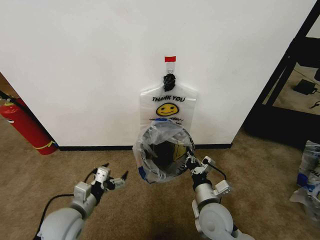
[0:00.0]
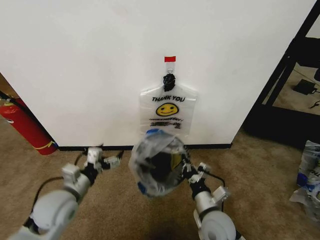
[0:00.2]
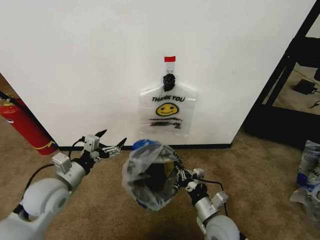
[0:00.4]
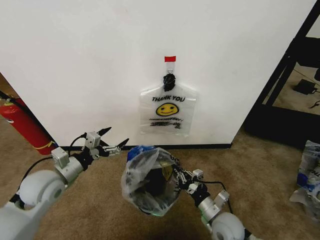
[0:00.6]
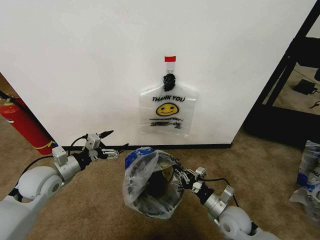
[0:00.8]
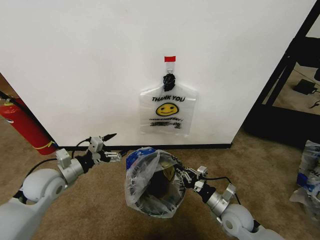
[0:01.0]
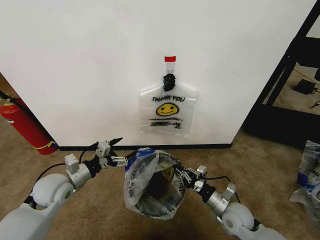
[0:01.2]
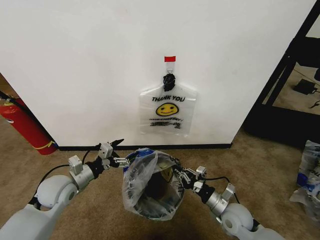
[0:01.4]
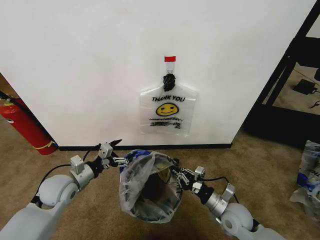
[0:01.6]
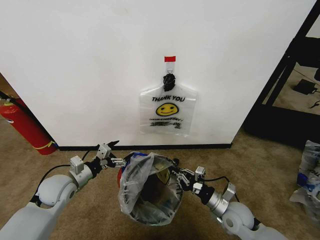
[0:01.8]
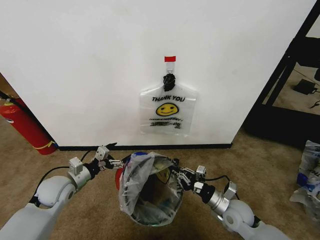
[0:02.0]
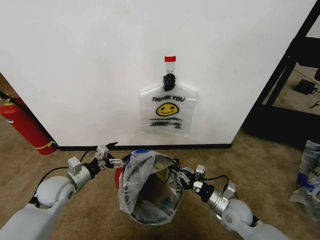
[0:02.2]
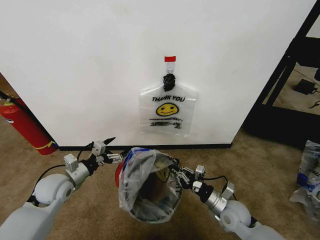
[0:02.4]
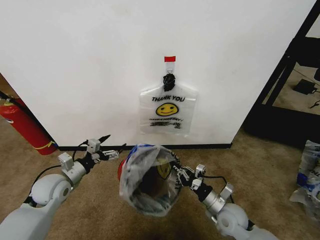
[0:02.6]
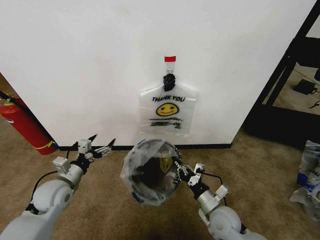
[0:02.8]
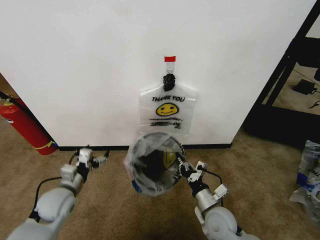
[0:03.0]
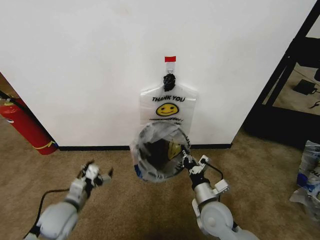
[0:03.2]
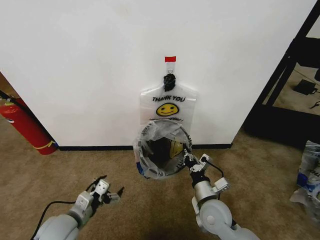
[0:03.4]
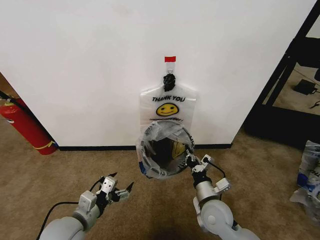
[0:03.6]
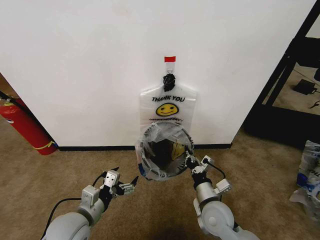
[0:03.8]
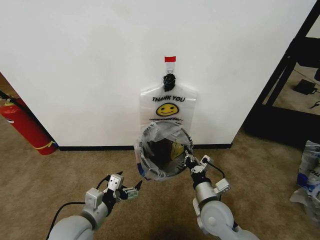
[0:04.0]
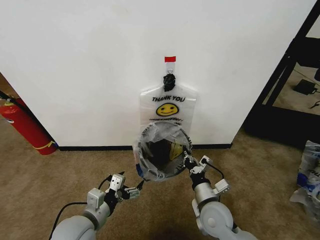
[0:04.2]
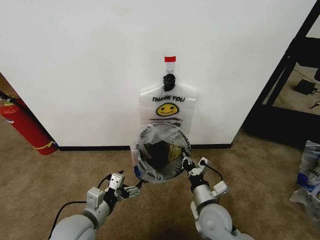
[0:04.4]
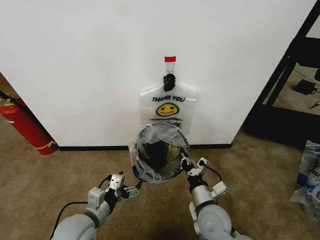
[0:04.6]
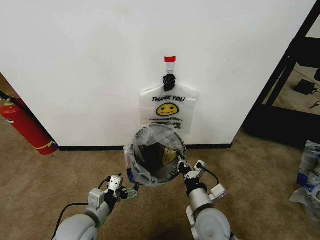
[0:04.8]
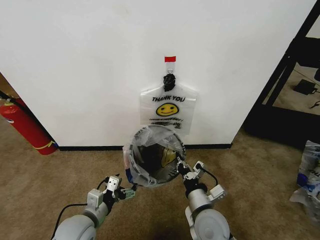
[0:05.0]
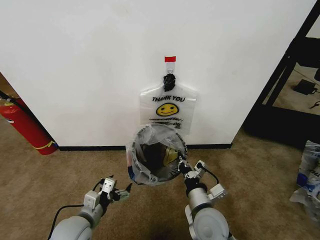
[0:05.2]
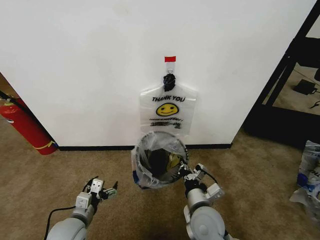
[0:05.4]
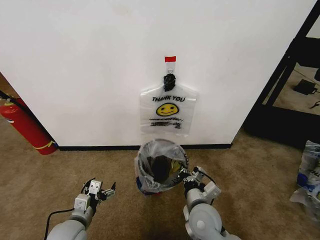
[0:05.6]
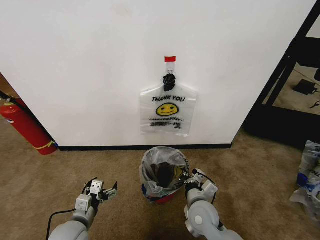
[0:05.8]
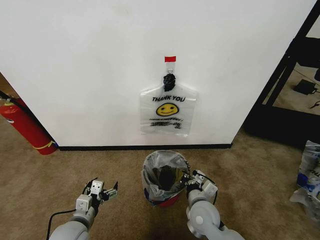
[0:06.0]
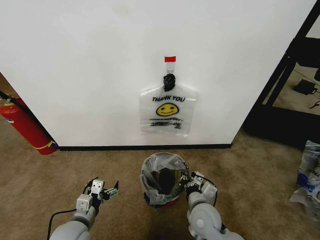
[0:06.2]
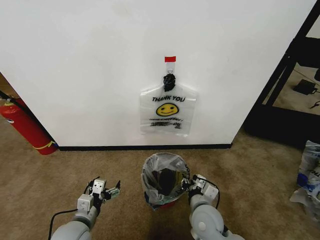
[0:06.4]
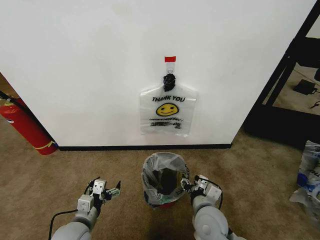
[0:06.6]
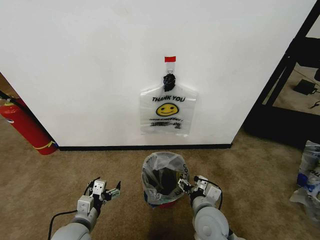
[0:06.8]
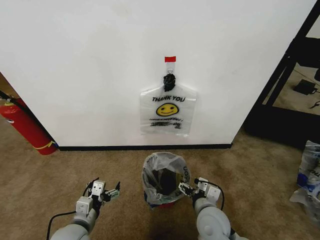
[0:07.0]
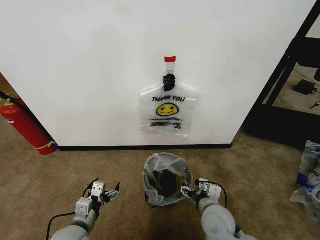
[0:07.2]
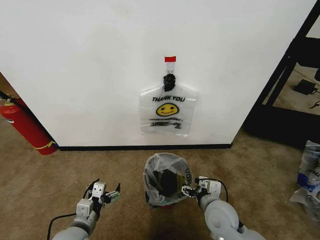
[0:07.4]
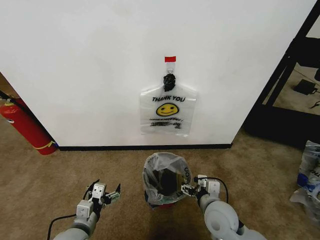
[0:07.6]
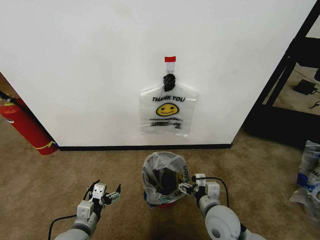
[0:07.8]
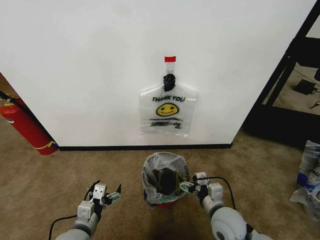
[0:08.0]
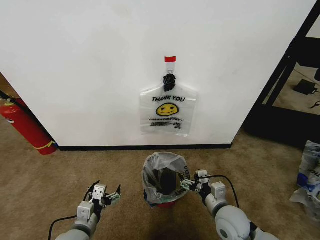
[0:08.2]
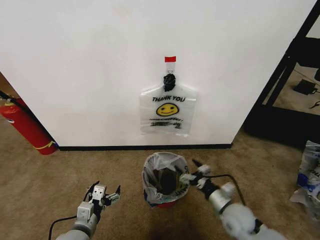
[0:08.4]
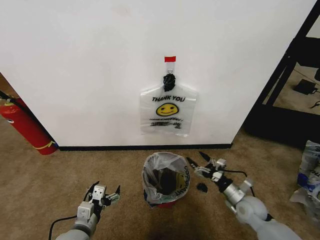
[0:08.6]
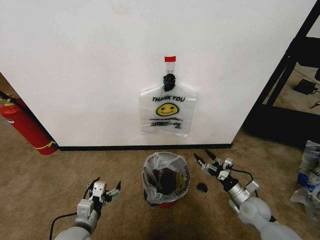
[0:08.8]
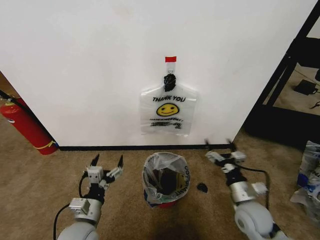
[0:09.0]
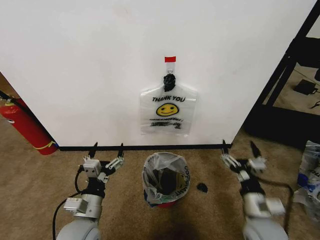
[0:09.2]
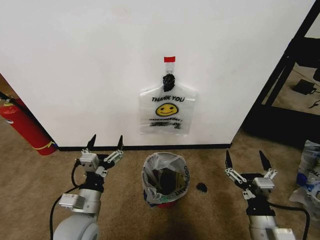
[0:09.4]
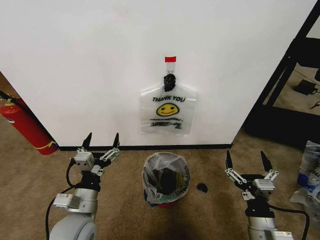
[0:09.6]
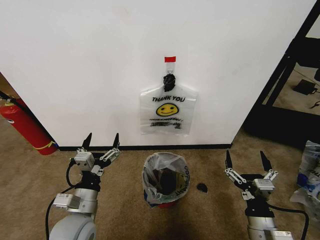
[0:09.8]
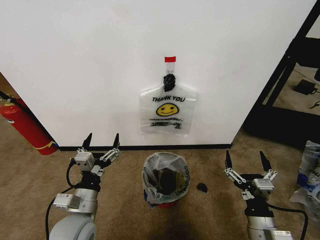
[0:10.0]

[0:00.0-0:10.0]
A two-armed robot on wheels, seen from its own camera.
Task of the whole recording: Pick up the garbage bag from the wall and place it over the trash bin.
0:00.0 to 0:01.4: The right gripper travels to the right and downward by some 10 cm. Meanwhile the left gripper moves forward, approximately 10 cm.
0:02.8 to 0:04.2: The right gripper ends up approximately 5 cm from where it was; the left gripper travels to the right and backward by roughly 15 cm.
0:04.2 to 0:05.8: The left gripper goes some 5 cm downward.
0:05.8 to 0:07.2: The right gripper opens its fingers.
0:07.2 to 0:08.6: The right gripper travels to the right and downward by roughly 20 cm.
0:08.6 to 0:10.0: The left gripper moves upward, roughly 10 cm; the right gripper is displaced backward, upward and to the left by about 20 cm.

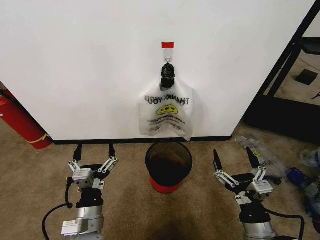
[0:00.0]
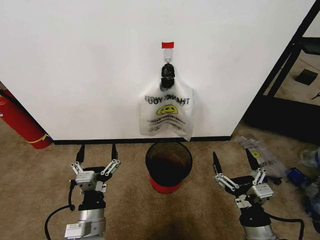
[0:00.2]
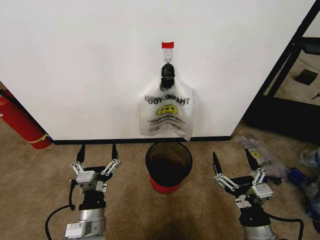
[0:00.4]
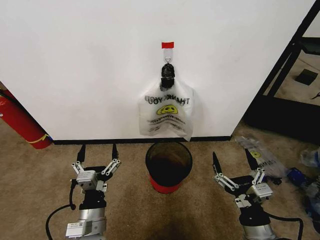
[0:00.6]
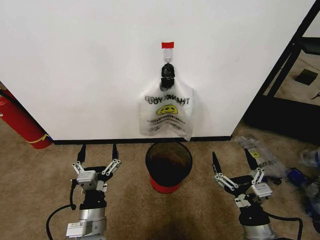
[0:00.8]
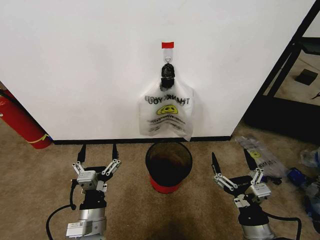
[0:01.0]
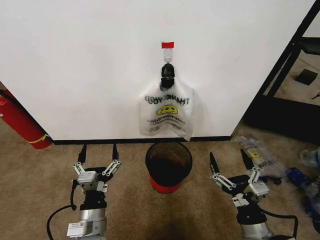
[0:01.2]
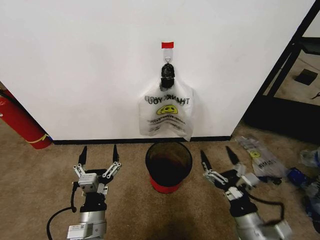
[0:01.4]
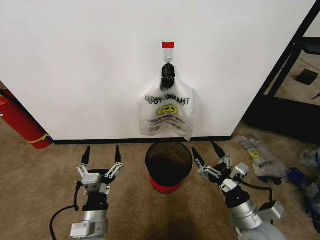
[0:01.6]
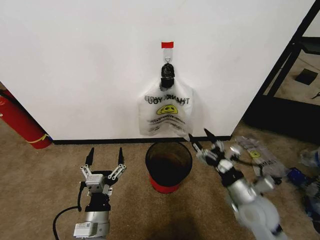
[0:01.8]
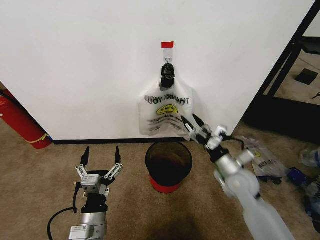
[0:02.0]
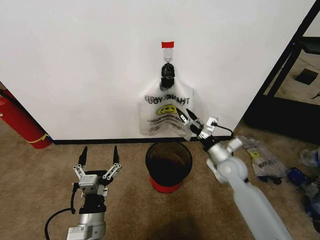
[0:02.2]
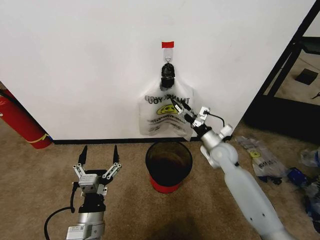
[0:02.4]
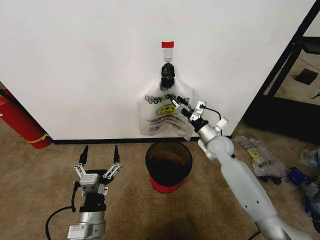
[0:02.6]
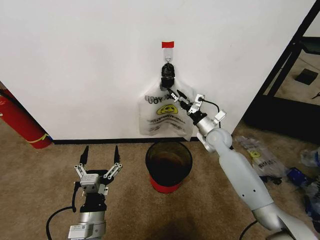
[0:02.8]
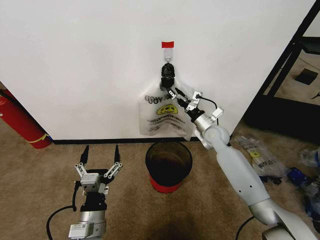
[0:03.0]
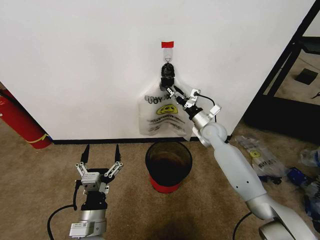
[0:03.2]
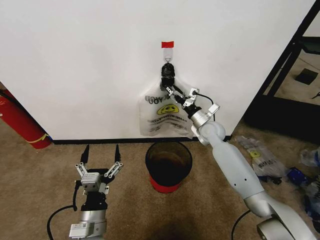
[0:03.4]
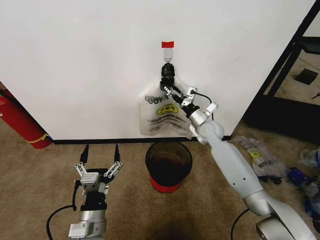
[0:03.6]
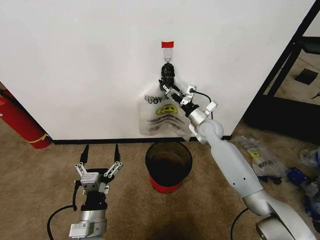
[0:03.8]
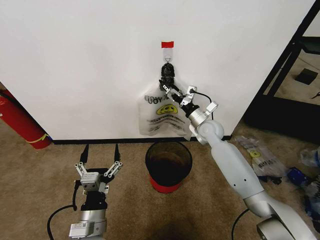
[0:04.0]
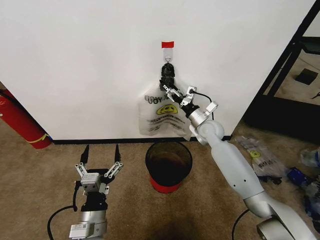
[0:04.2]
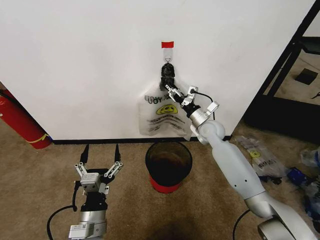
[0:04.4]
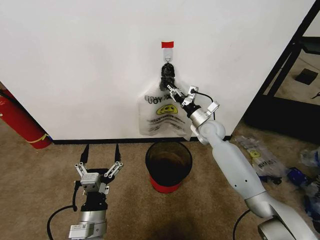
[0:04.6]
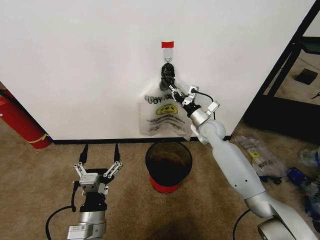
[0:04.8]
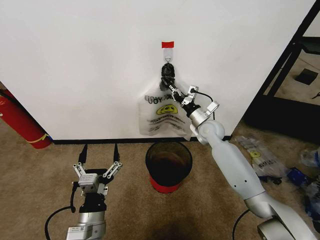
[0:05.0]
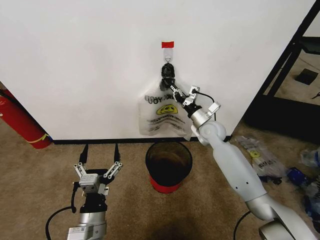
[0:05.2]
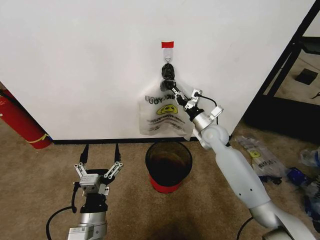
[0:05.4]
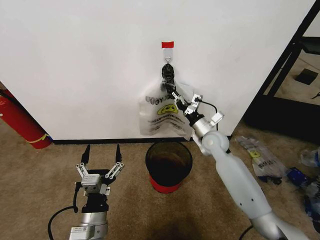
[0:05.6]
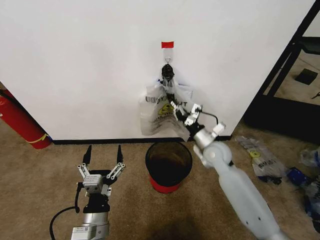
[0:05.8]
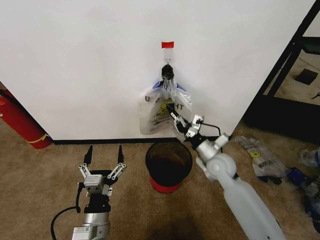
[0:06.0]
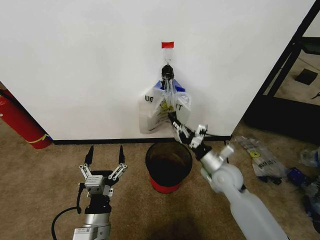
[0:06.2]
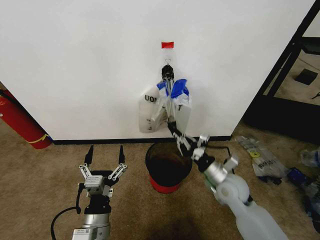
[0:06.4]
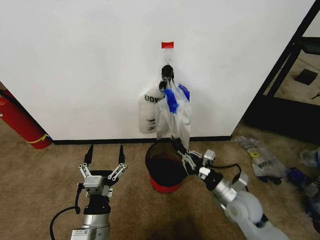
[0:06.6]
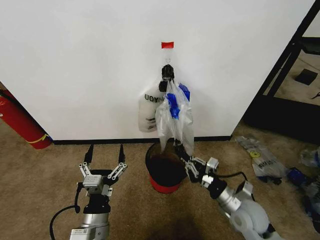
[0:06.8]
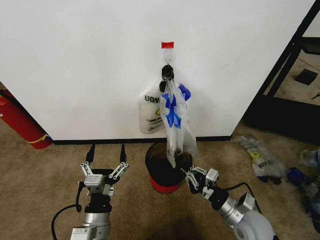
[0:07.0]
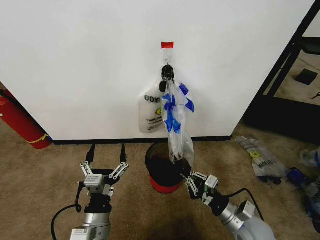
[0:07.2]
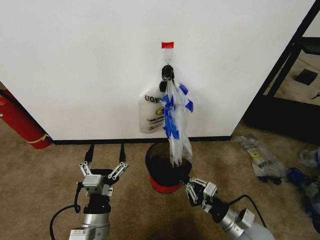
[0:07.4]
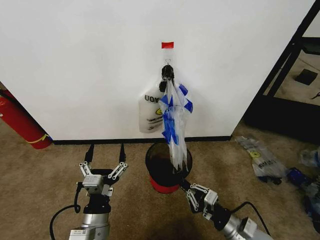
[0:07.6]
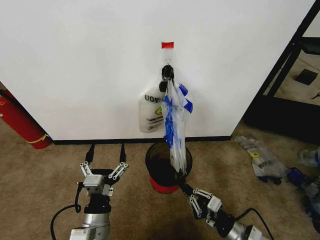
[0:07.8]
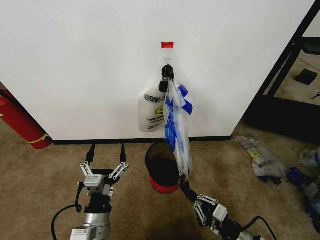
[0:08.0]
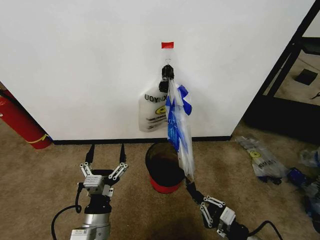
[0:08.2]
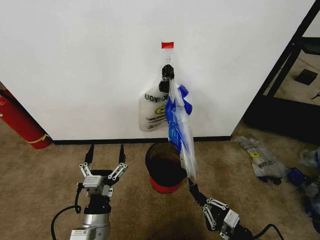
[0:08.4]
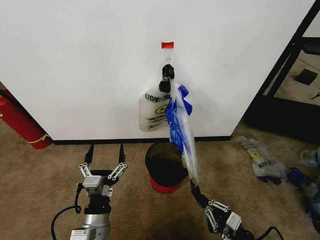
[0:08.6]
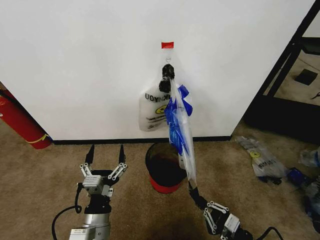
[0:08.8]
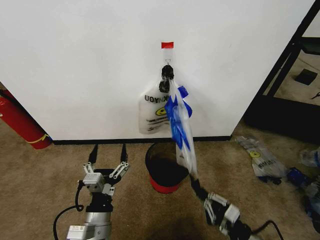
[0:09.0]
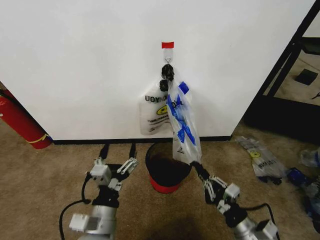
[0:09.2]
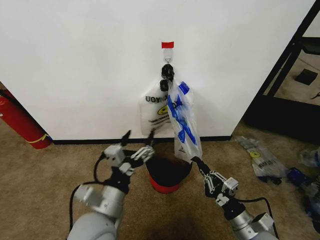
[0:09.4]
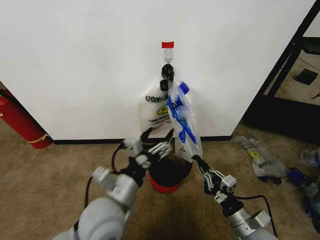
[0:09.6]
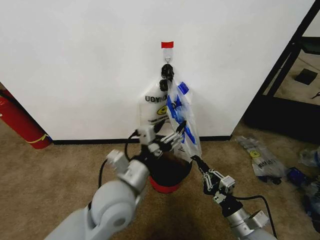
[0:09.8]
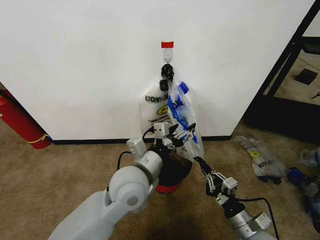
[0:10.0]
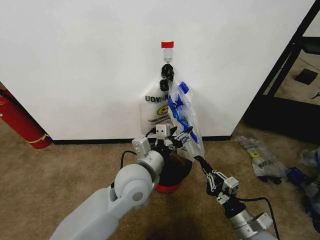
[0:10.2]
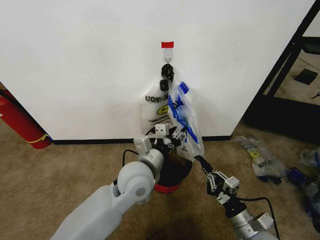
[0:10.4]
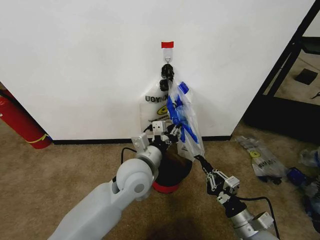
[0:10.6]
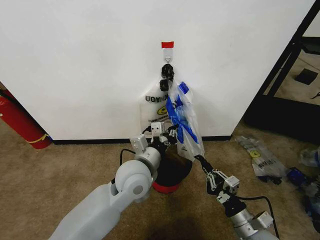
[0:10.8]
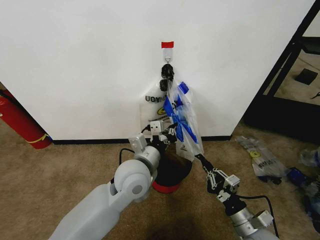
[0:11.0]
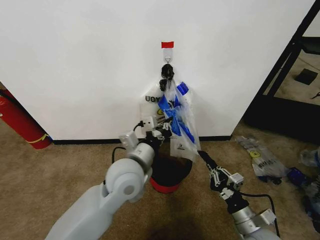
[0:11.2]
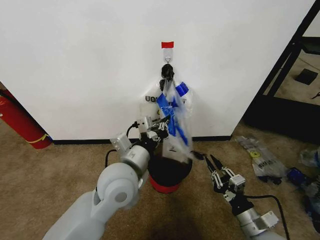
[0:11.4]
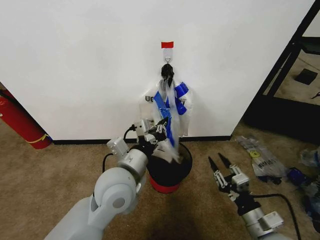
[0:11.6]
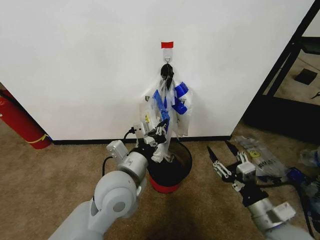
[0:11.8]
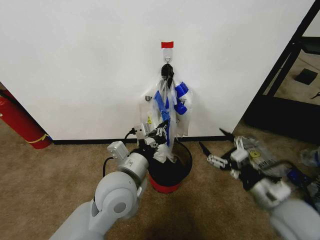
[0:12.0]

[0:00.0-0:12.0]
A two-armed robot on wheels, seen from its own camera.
Task of the whole recording: Pick up the garbage bag from the wall and place it over the trash bin.
0:01.6 to 0:03.0: The right gripper goes roughly 35 cm forward.
0:03.0 to 0:04.4: The right gripper closes its fingers.
0:04.4 to 0:06.0: The right gripper is displaced backward by some 15 cm, and closes its fingers.
0:06.0 to 0:07.6: The right gripper is displaced backward by roughly 20 cm.
0:07.6 to 0:09.0: The right gripper moves roughly 5 cm.
0:09.0 to 0:10.4: The left gripper travels forward, to the right and upward by some 20 cm, and closes its fingers.
0:10.4 to 0:12.0: The left gripper ends up roughly 5 cm from where it was, and closes up. The right gripper travels upward by approximately 10 cm, and opens its fingers.
